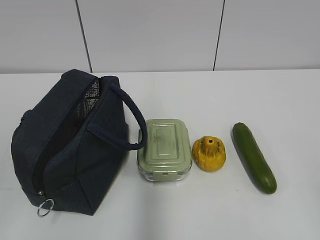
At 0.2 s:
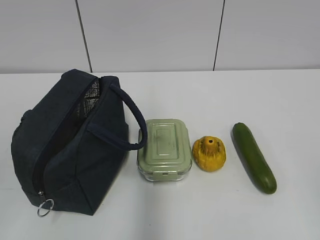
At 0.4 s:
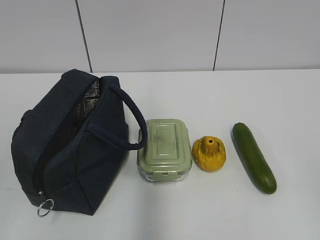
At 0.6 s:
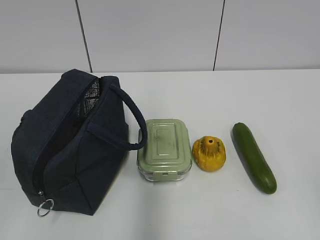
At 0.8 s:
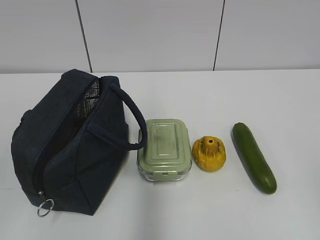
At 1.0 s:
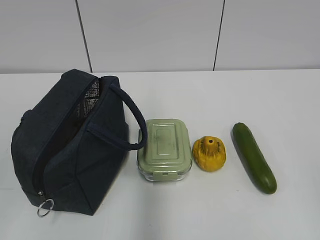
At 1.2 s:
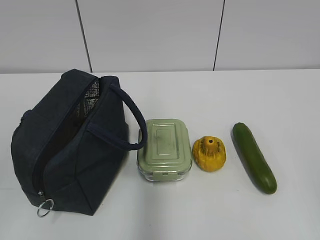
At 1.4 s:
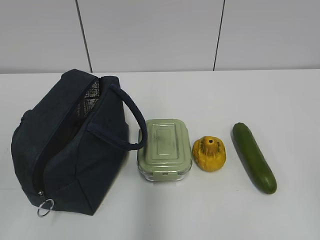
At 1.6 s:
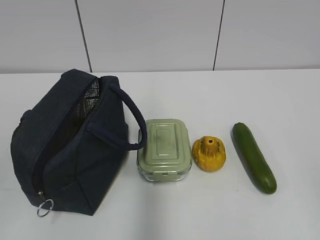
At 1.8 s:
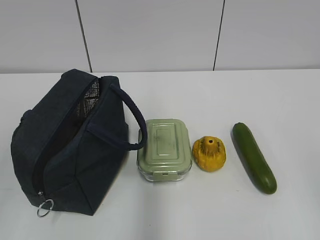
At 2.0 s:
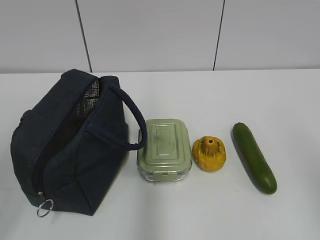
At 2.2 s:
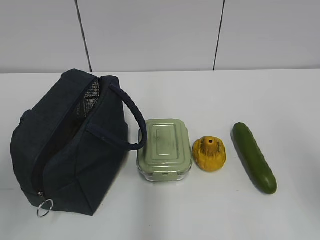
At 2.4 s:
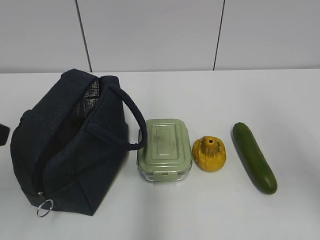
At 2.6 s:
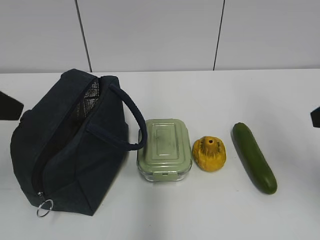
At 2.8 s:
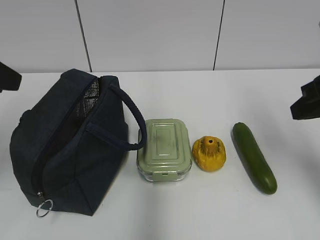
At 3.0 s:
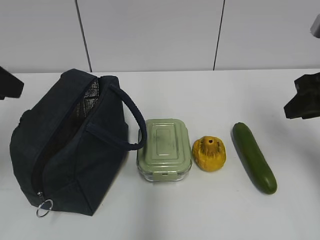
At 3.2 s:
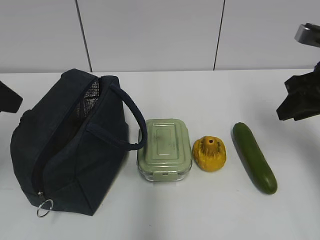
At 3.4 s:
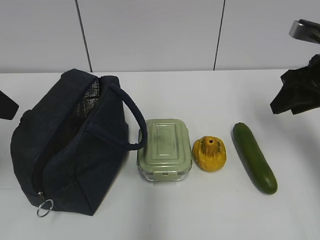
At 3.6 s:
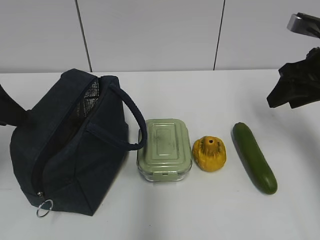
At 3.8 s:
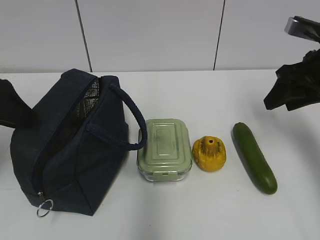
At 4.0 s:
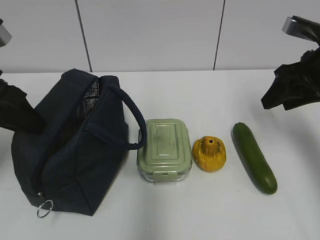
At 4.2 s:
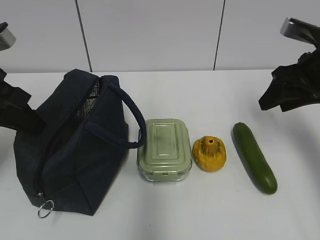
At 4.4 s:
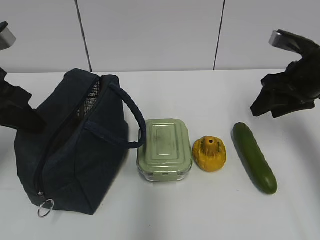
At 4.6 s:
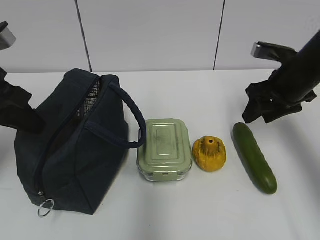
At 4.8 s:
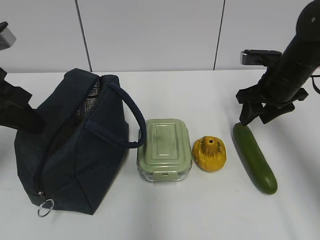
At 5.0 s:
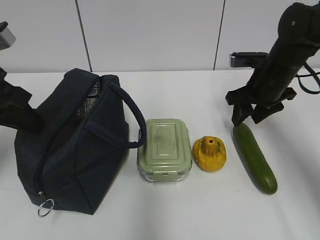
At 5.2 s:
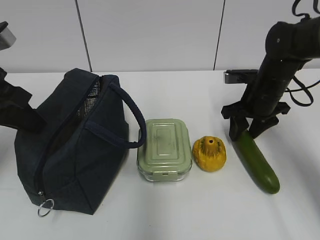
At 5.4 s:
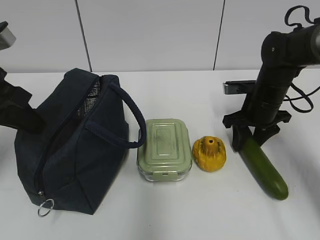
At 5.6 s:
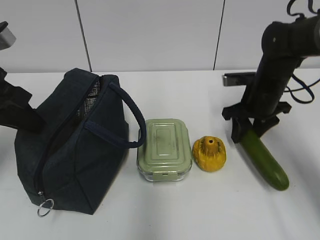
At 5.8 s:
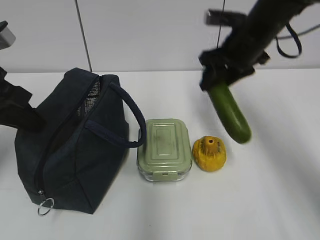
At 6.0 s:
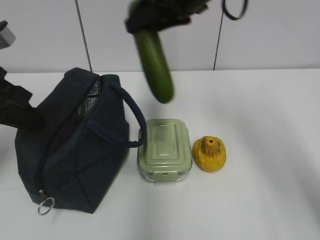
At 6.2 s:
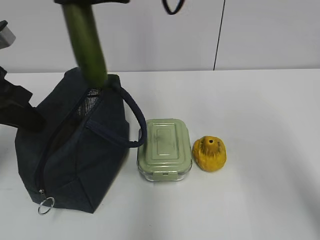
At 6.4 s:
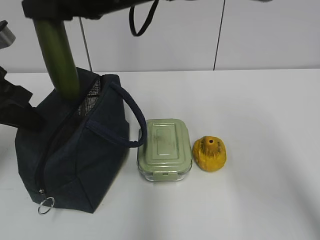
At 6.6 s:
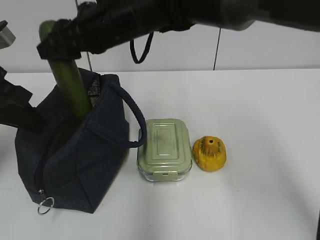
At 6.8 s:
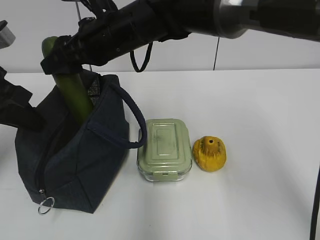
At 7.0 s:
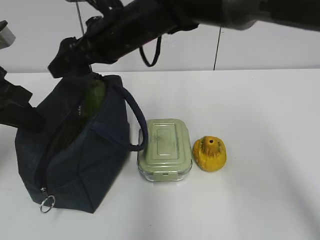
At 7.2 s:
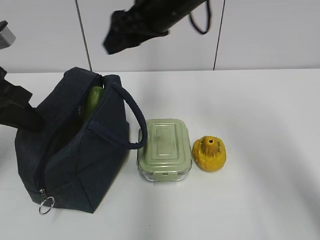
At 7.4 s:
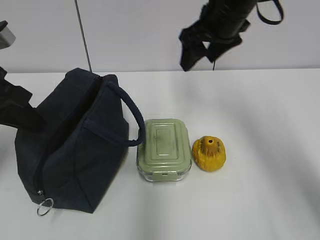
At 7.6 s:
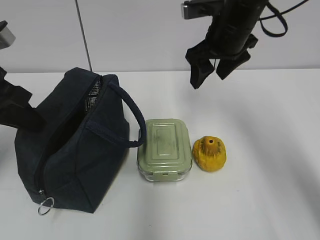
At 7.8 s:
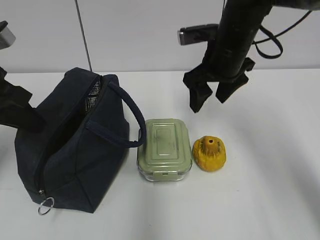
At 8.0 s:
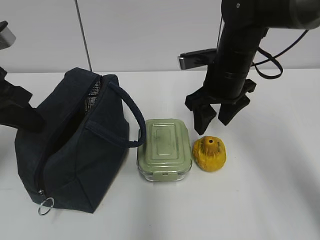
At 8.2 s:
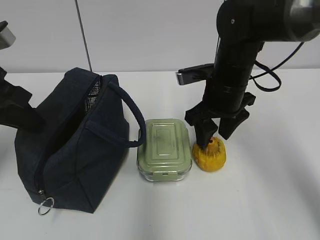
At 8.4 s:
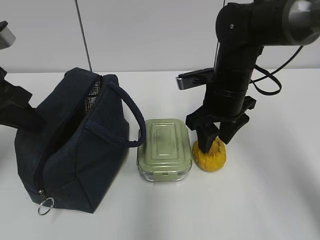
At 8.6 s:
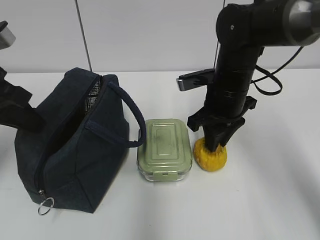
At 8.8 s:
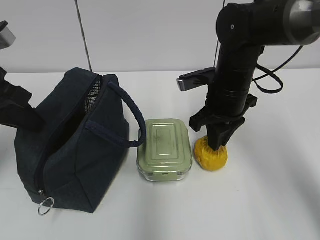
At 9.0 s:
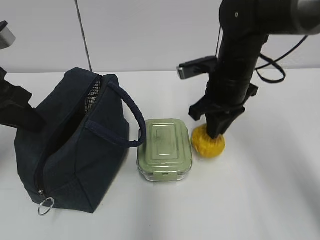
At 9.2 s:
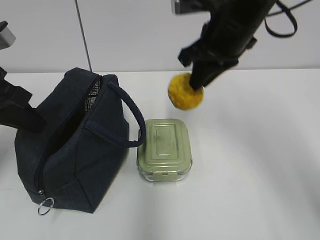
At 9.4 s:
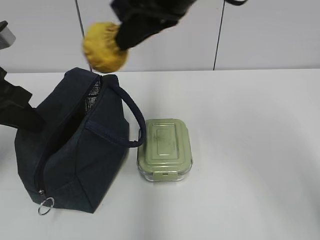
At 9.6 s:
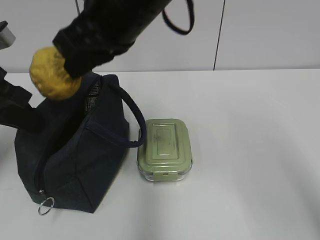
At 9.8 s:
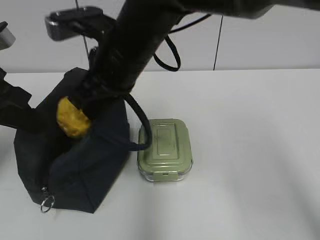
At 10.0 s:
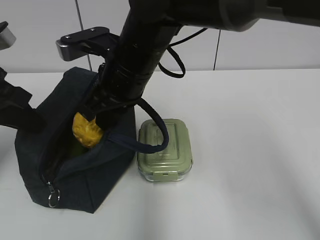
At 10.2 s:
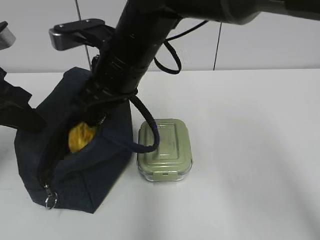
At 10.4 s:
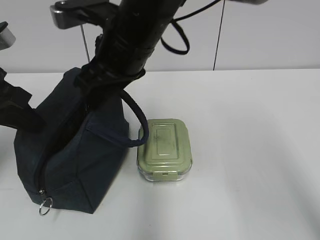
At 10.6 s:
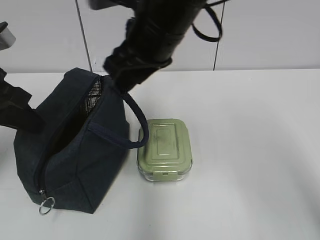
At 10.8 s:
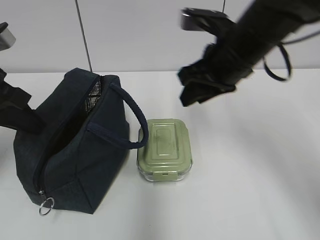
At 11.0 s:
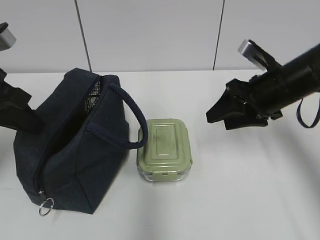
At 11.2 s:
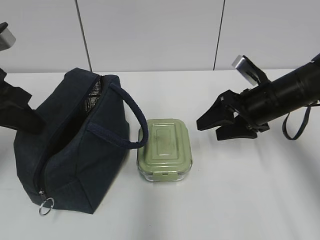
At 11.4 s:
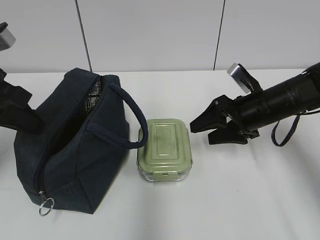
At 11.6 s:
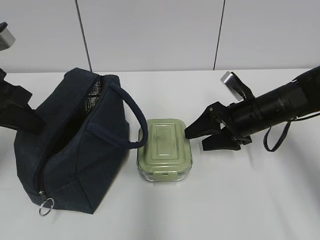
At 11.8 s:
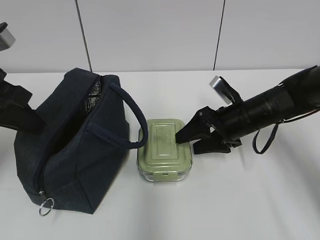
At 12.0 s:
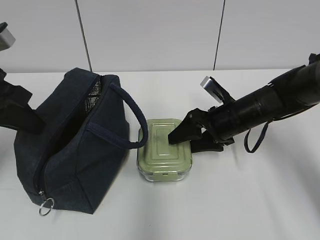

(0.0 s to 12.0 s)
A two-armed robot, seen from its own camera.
1.6 s - 3.0 s: Both grippers travel together forward, roughly 25 cm.
3.0 s - 4.4 s: The left gripper moves downward, about 5 cm, and closes. The right gripper heads forward, covering some 10 cm.
4.4 s - 6.0 s: The right gripper goes some 25 cm to the left and upward.
6.0 s - 7.6 s: The right gripper shifts approximately 10 cm downward and to the right, and opens up.
7.6 s - 9.0 s: The right gripper changes place by some 5 cm, and closes its fingers.
9.0 s - 10.4 s: The right gripper travels to the left and upward by about 15 cm, and opens its fingers.
10.4 s - 12.0 s: The right gripper travels downward and to the right by about 25 cm.

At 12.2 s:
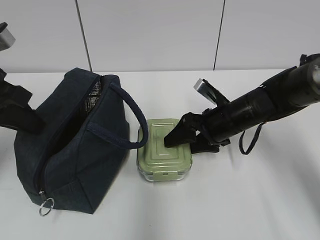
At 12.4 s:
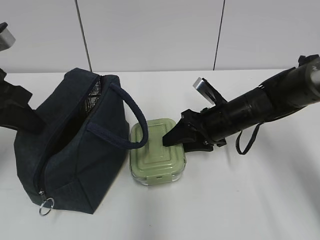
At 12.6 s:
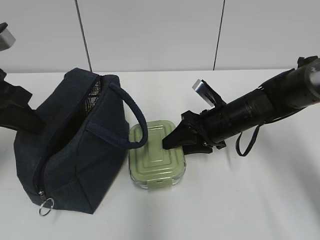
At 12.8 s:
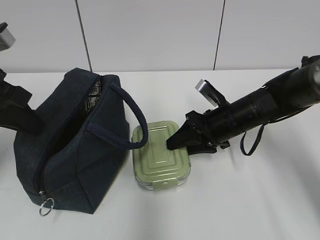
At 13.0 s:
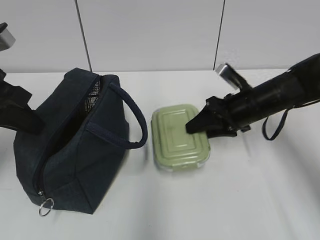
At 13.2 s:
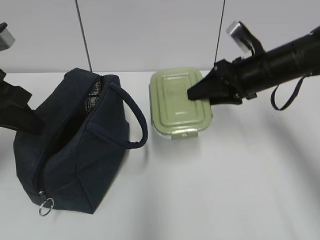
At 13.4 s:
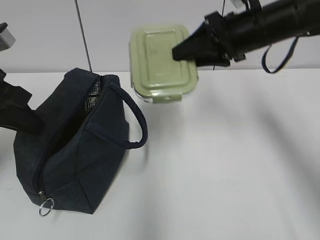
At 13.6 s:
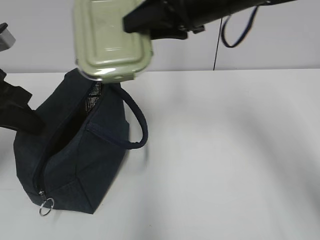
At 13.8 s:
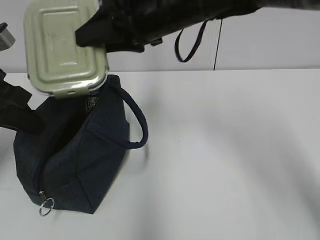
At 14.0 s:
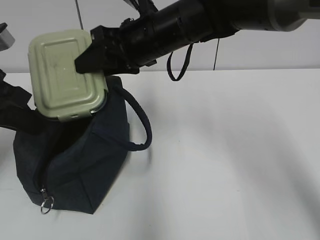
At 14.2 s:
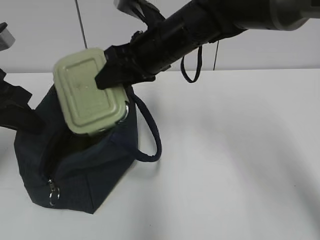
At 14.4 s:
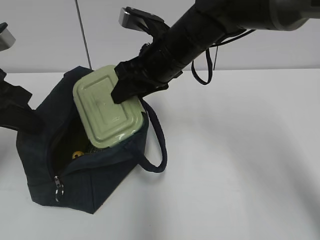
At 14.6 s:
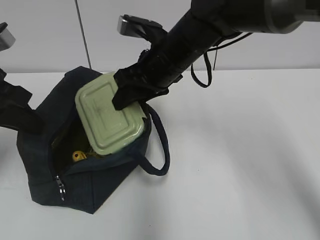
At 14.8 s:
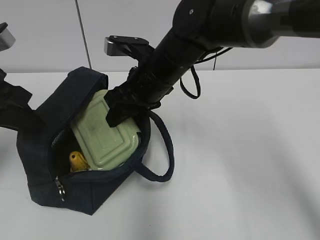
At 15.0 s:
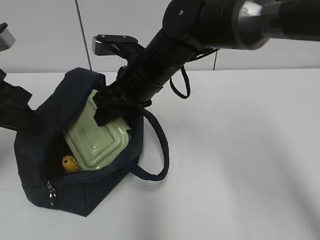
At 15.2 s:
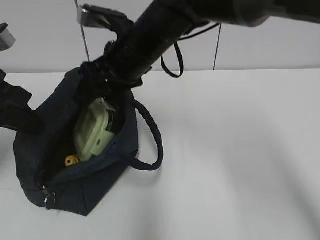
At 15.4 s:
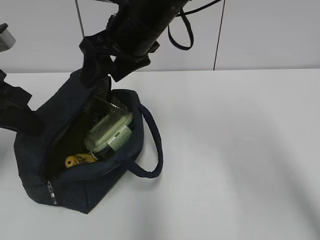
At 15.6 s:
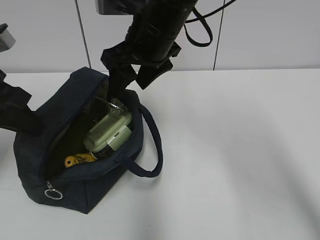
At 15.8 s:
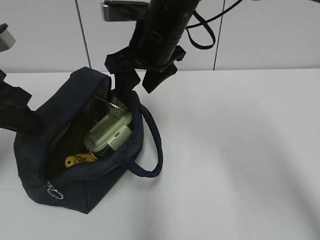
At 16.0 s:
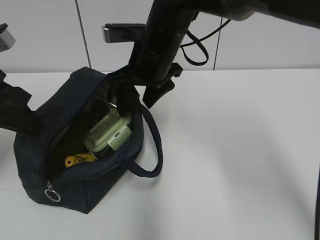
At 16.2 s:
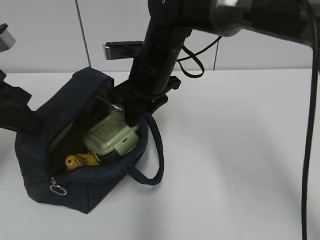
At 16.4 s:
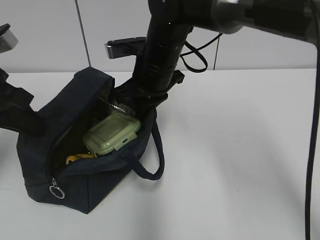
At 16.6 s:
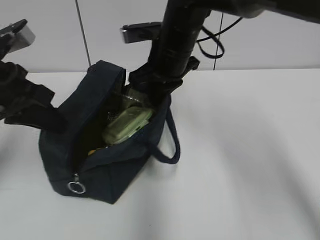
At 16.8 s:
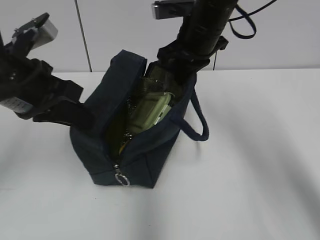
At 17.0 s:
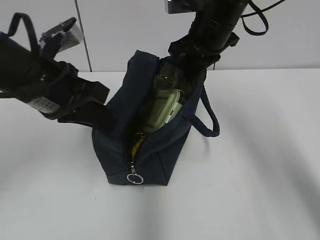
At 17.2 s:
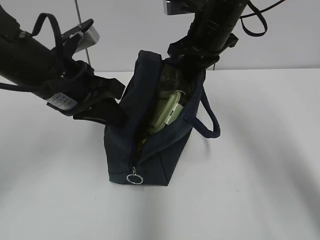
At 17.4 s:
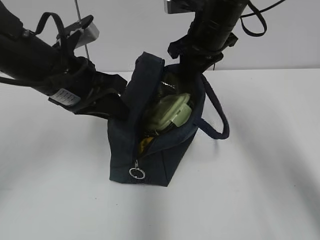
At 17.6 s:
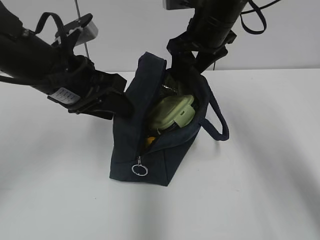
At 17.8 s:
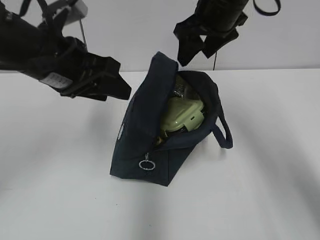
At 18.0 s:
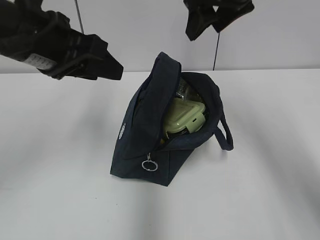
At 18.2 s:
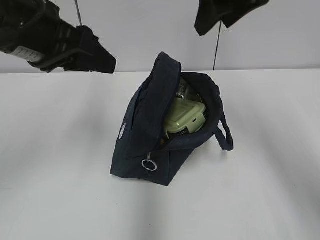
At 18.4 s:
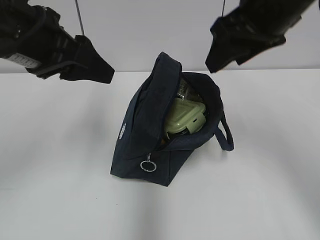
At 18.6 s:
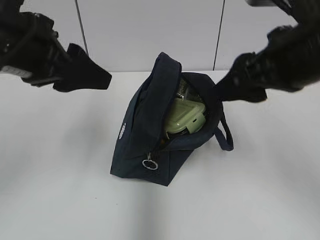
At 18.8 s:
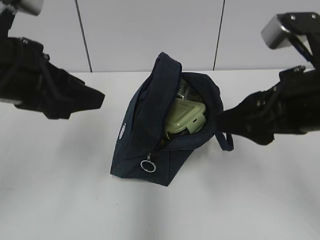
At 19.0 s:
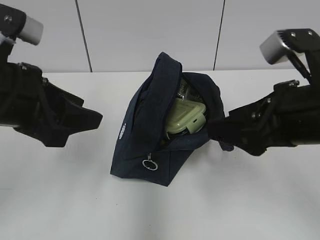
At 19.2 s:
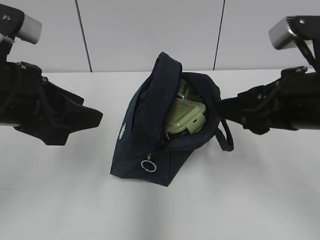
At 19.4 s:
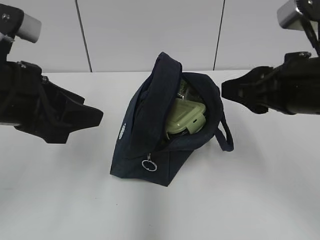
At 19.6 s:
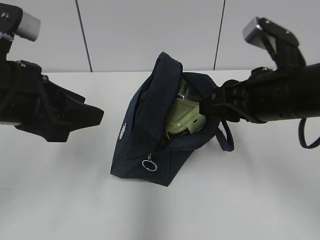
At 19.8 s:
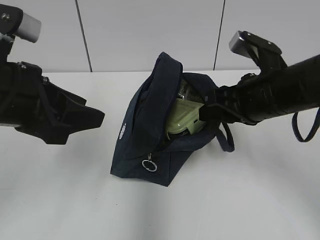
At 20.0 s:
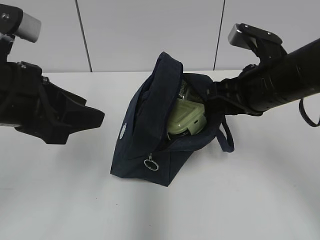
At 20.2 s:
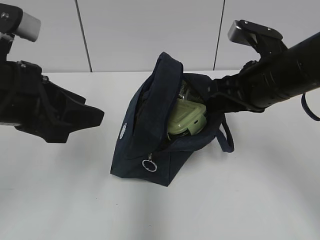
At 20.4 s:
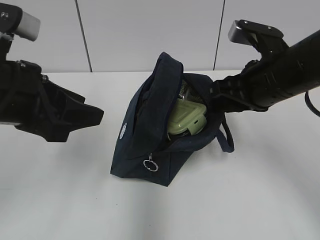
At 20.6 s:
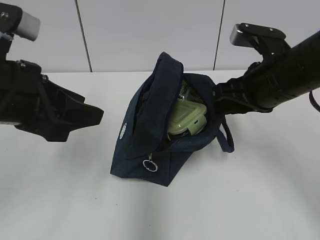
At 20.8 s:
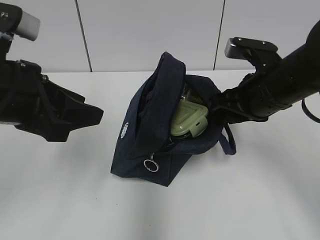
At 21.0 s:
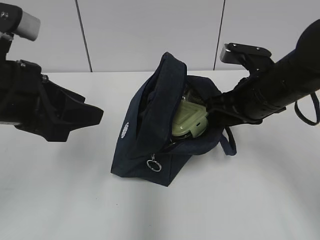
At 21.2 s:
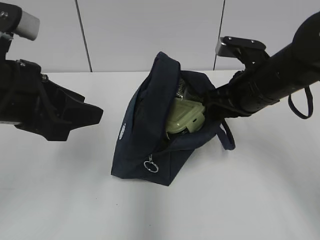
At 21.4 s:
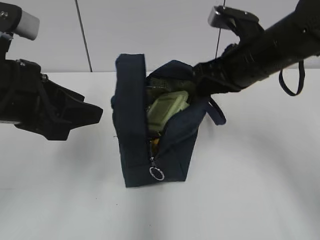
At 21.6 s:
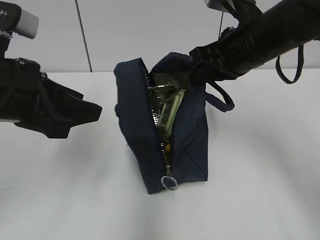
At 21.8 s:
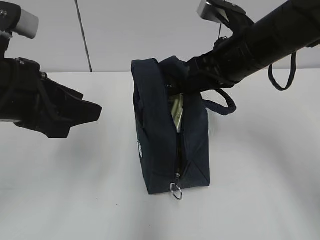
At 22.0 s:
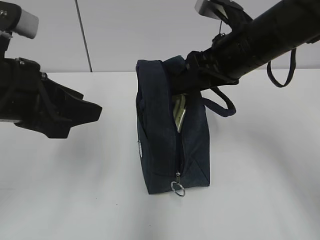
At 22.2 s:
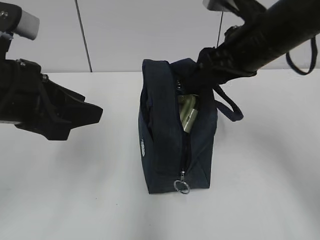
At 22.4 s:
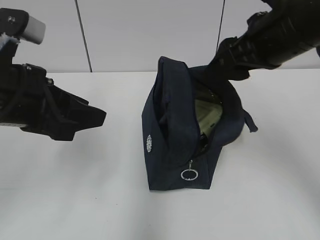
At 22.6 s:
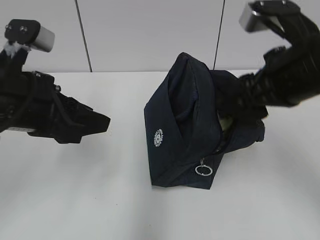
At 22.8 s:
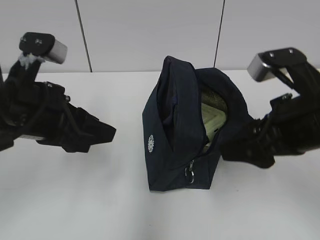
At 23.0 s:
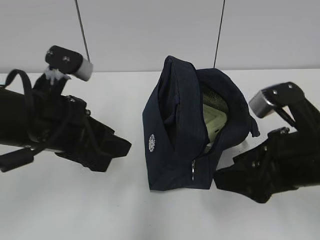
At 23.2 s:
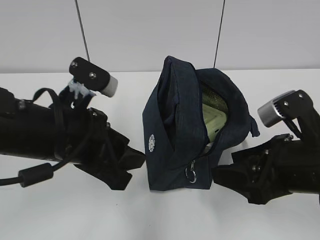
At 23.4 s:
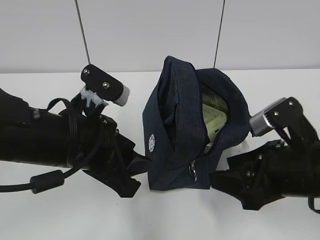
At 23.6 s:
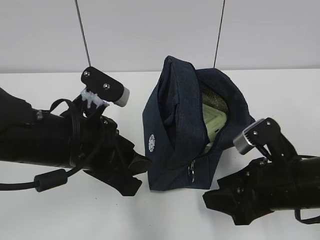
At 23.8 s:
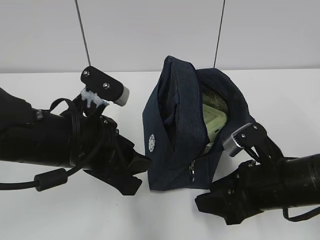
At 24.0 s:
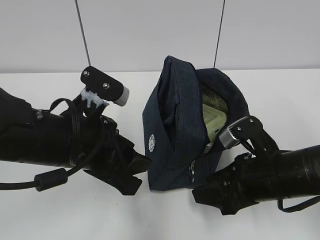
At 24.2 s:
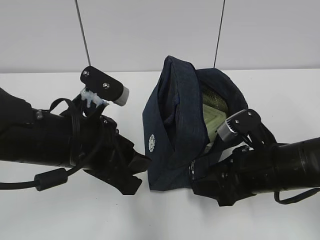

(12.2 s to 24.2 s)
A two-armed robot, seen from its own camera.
12.2 s - 13.8 s: The right gripper goes roughly 25 cm upward and to the left, and closes up.
13.8 s - 15.2 s: The right gripper opens.
15.2 s - 16.6 s: The right gripper travels to the right by approximately 5 cm, and closes.
16.6 s - 18.2 s: The right gripper moves upward and to the right, roughly 15 cm, and opens, while the left gripper moves upward and to the right, approximately 10 cm, and opens up.
18.2 s - 19.8 s: The left gripper goes roughly 10 cm backward and downward; the right gripper heads downward and backward, covering about 15 cm, and closes.
19.8 s - 21.2 s: The right gripper closes its fingers.
21.2 s - 22.6 s: The right gripper is displaced backward and upward by approximately 10 cm, and opens up.
22.6 s - 24.2 s: The right gripper shifts some 15 cm downward, while the left gripper is displaced to the right by approximately 5 cm.
